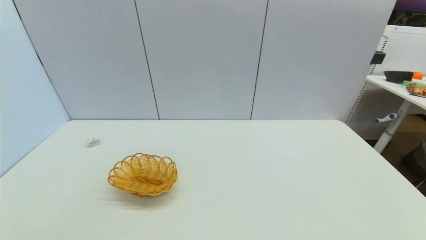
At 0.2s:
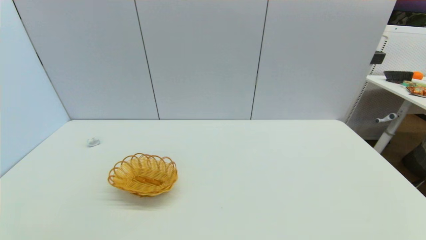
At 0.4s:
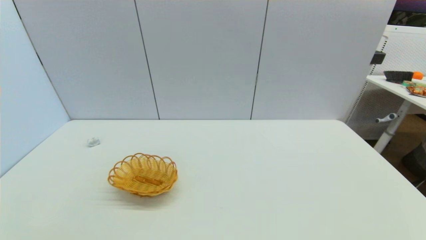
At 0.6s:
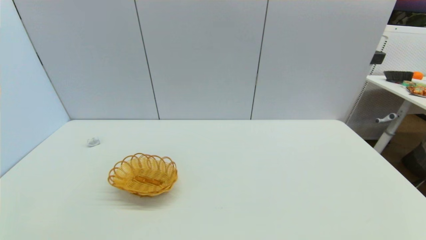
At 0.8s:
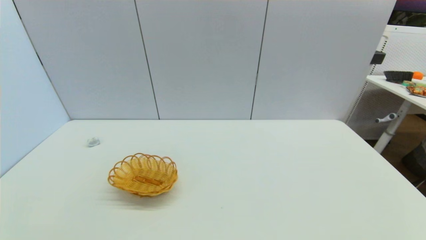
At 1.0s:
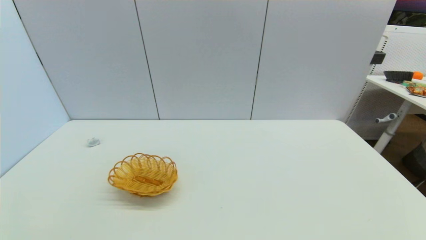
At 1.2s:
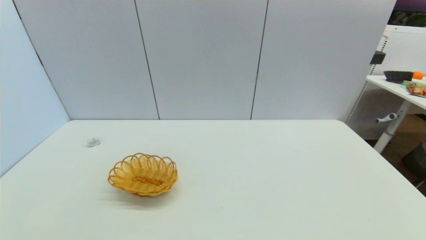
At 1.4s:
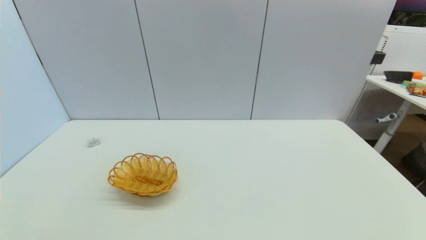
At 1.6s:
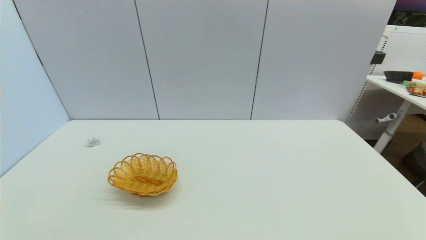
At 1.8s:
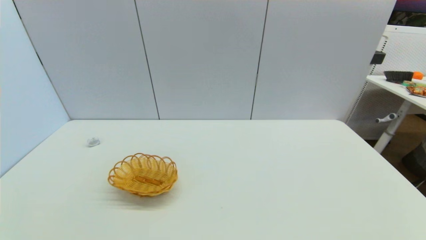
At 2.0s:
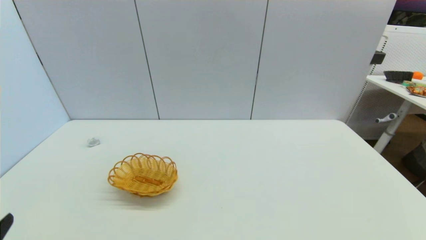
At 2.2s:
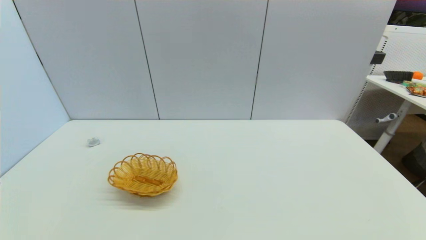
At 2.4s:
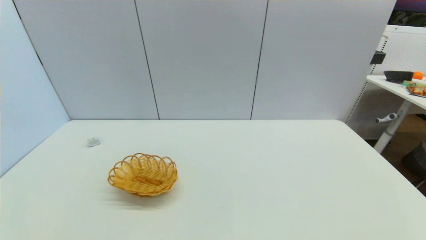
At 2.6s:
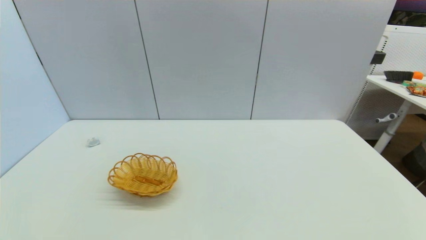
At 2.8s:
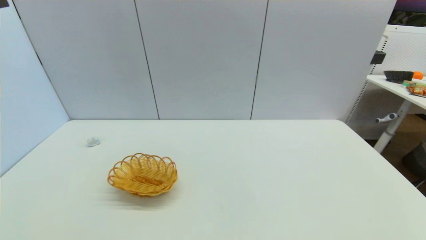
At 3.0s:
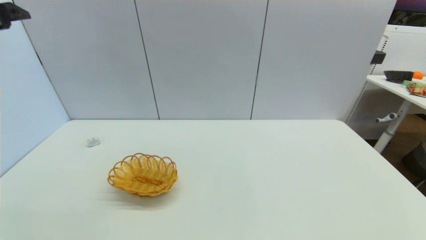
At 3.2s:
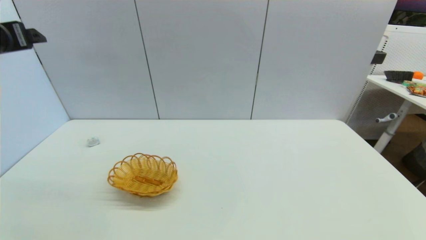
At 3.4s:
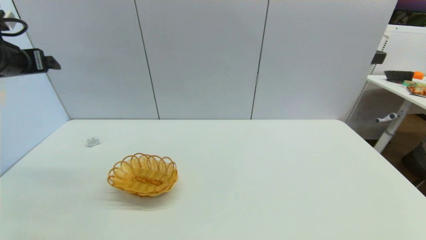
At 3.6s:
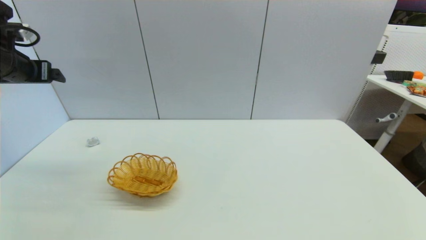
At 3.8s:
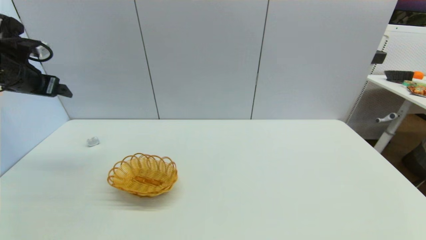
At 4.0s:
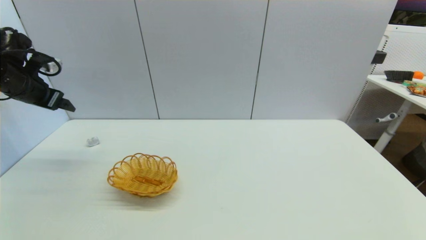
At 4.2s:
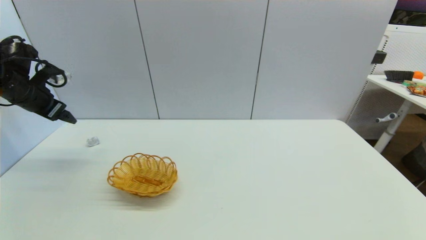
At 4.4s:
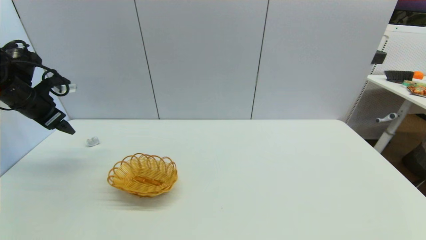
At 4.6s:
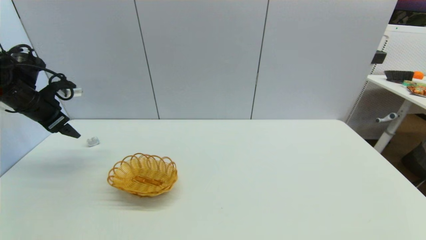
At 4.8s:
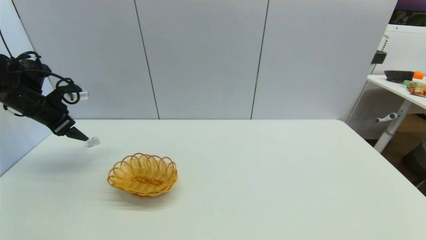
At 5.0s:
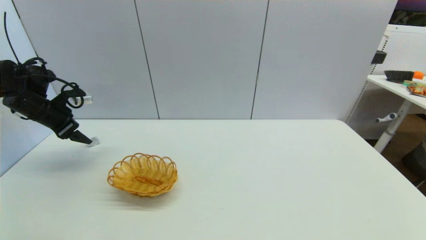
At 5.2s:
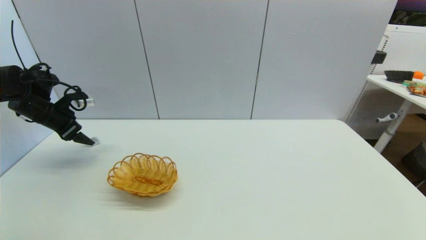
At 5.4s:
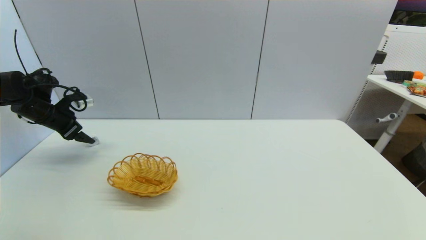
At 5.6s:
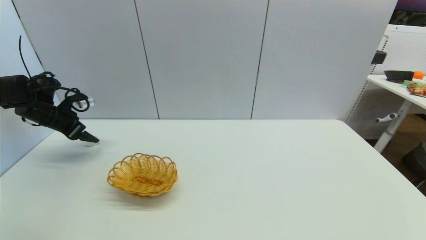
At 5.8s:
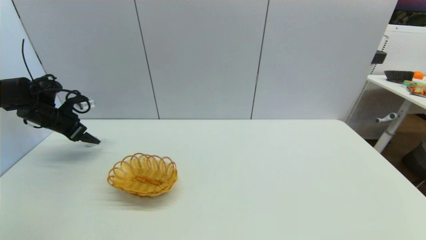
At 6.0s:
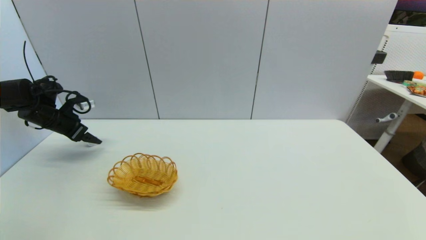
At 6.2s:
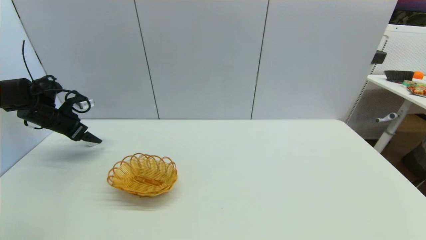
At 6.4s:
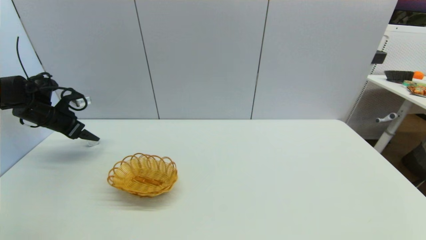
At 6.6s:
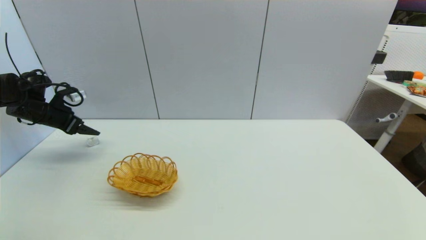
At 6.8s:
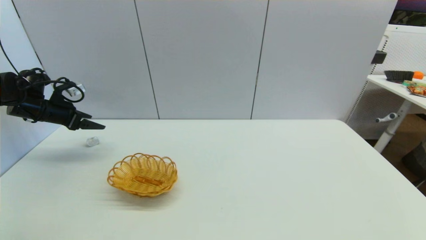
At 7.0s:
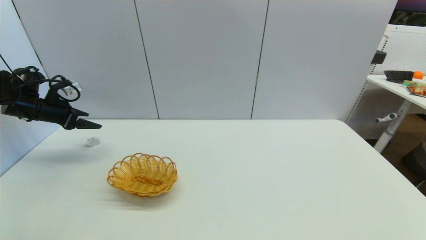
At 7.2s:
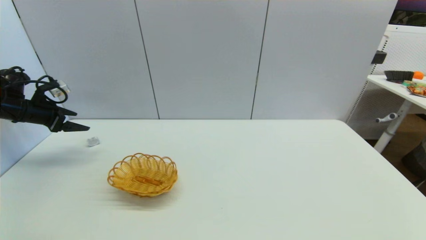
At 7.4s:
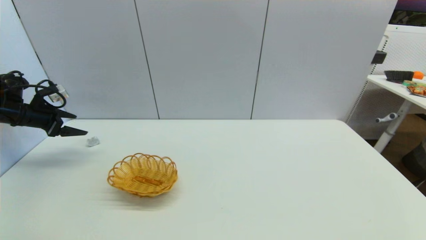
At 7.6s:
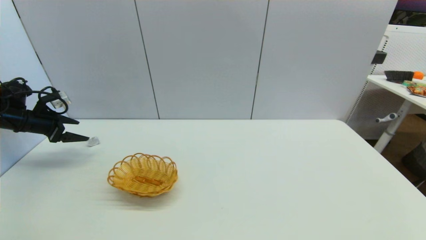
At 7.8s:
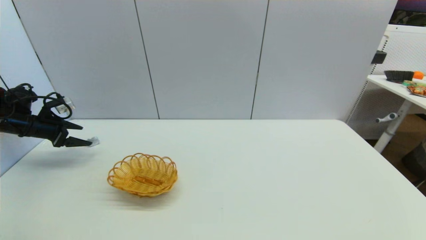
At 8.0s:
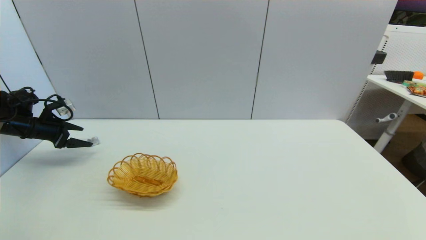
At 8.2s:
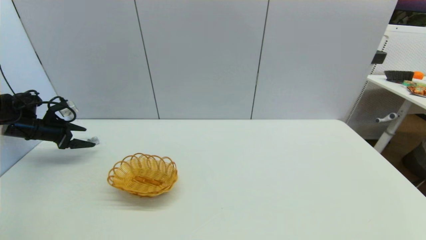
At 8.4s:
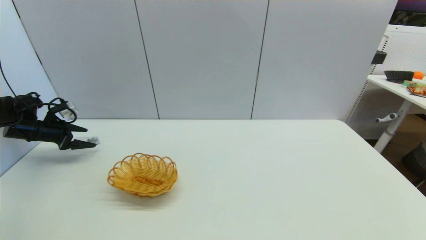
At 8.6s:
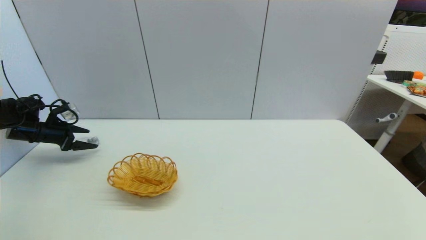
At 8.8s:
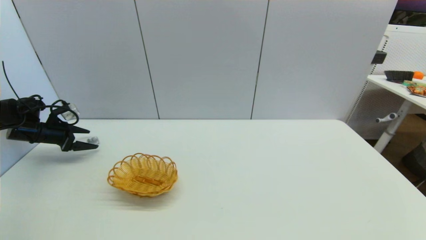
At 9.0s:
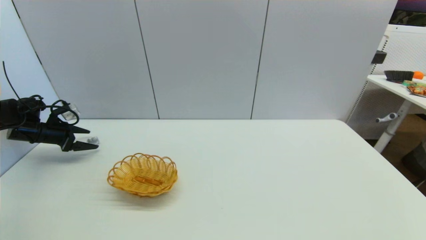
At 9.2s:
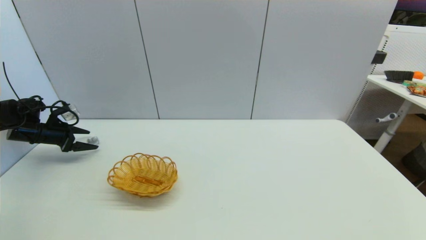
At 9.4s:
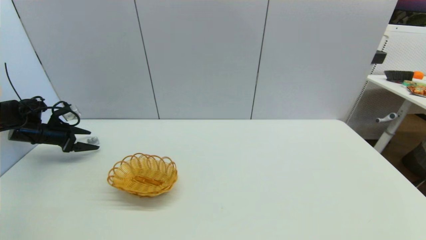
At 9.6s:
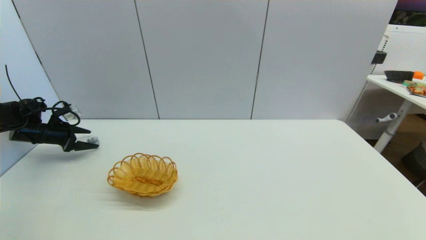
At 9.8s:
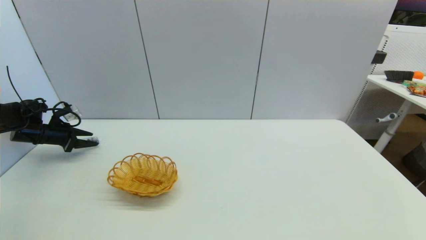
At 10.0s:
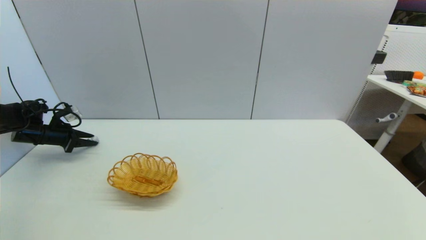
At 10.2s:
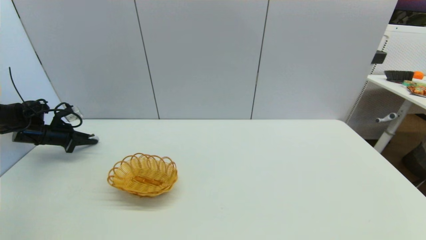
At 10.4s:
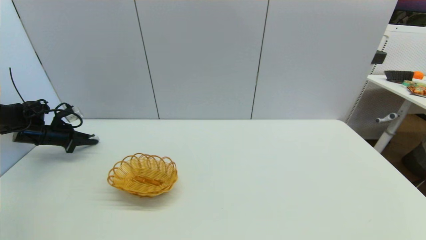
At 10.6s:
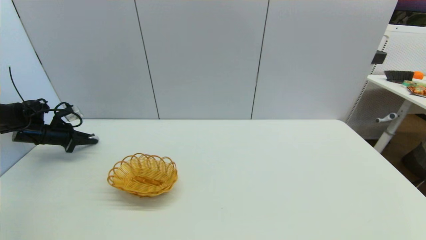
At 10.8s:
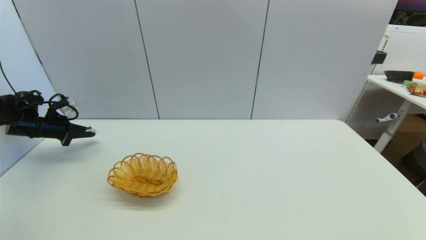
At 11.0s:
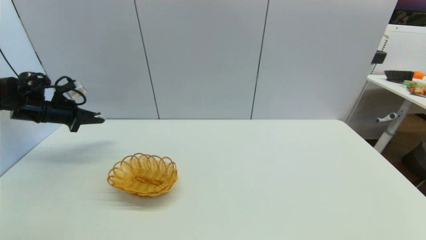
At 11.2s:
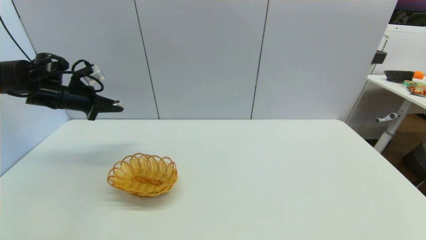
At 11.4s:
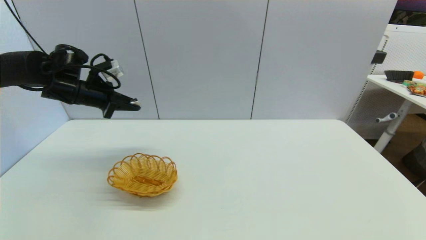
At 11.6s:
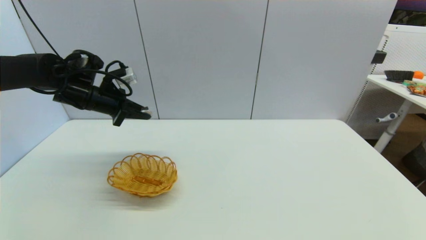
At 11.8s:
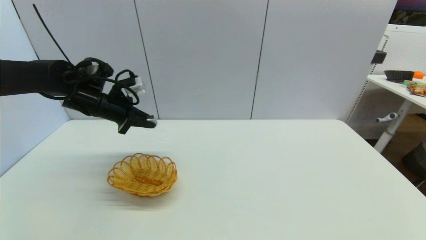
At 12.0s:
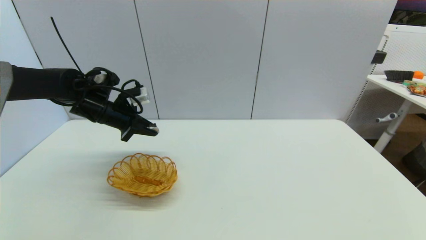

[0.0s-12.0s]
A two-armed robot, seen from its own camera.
Step, 1.8s to 10.4s: Grasp the coffee capsule with left gripper.
0.0s to 1.6s: Neither gripper changes place.
3.0s to 4.4s: The left gripper shifts some 20 cm downward, forward and to the left.
4.4s to 6.0s: The left gripper shifts about 10 cm downward and forward.
6.0s to 7.6s: The left gripper ends up roughly 5 cm from where it was.
7.6s to 9.0s: The left gripper goes approximately 5 cm downward.
9.0s to 10.4s: The left gripper closes its fingers.
10.4s to 12.0s: The left gripper travels to the right and upward by some 25 cm.

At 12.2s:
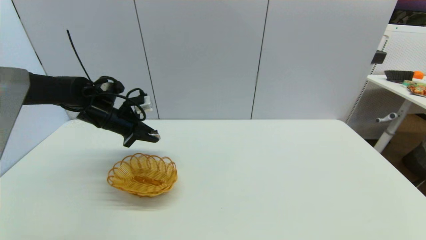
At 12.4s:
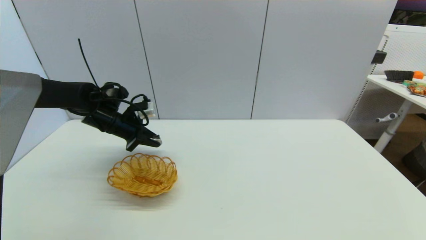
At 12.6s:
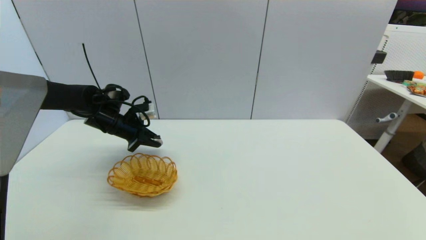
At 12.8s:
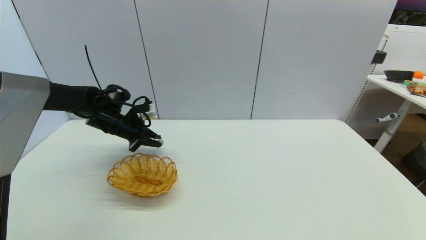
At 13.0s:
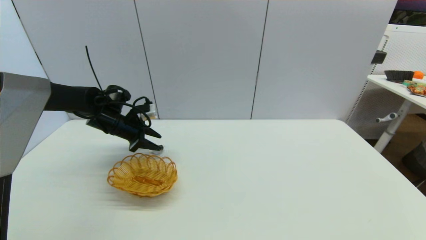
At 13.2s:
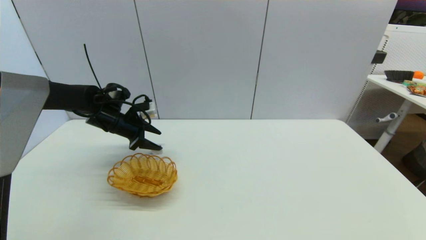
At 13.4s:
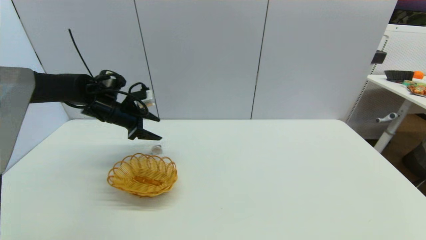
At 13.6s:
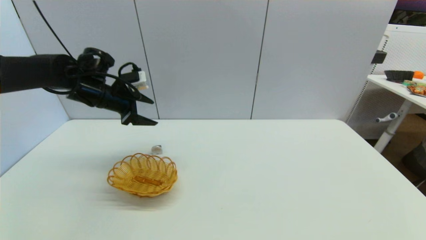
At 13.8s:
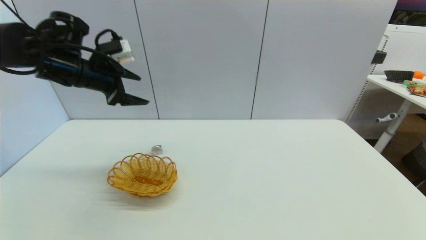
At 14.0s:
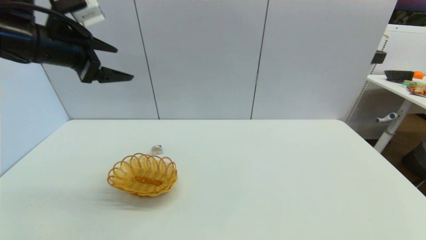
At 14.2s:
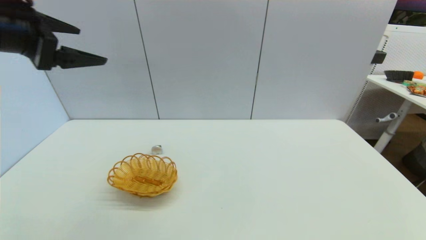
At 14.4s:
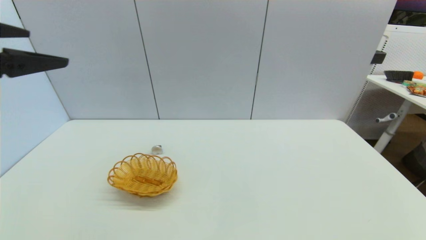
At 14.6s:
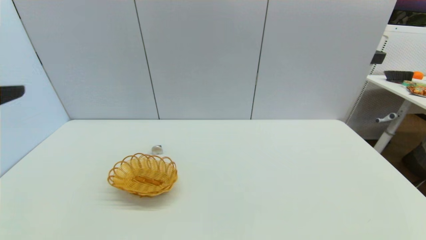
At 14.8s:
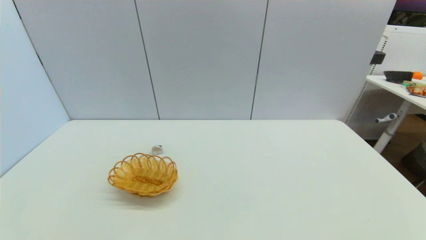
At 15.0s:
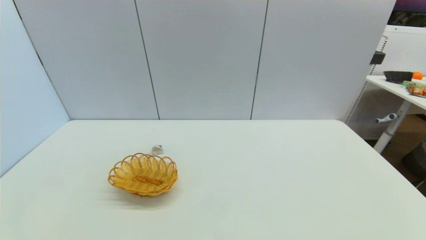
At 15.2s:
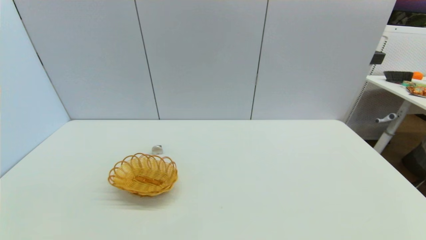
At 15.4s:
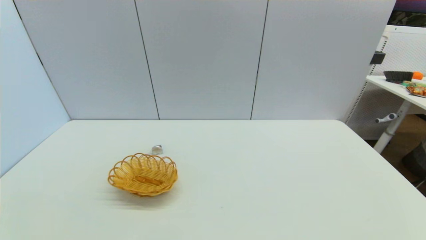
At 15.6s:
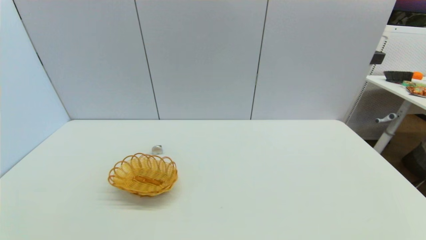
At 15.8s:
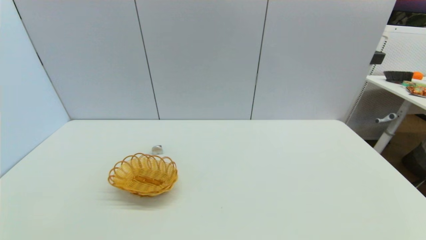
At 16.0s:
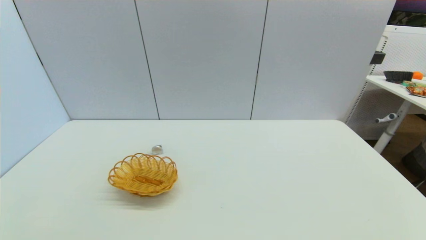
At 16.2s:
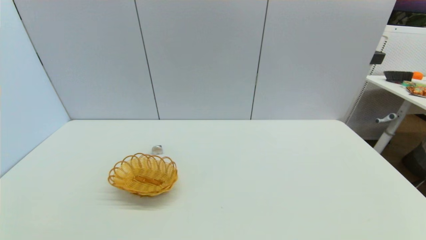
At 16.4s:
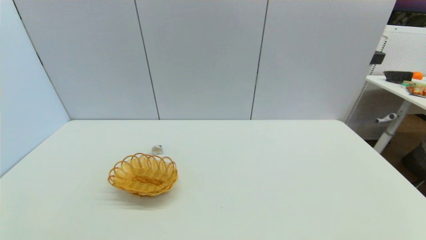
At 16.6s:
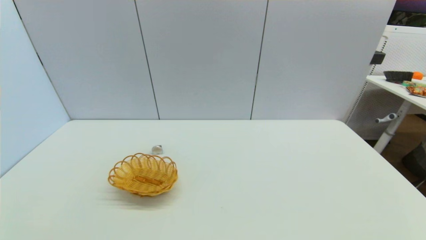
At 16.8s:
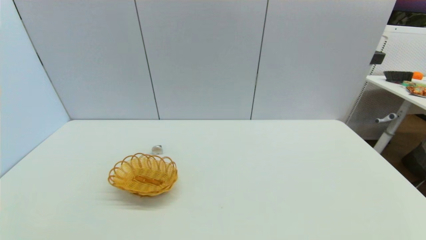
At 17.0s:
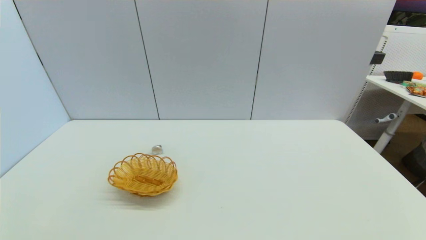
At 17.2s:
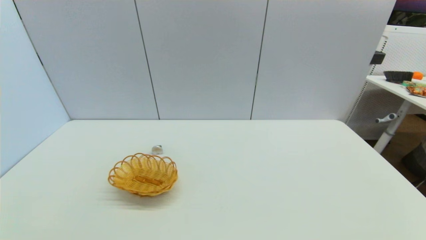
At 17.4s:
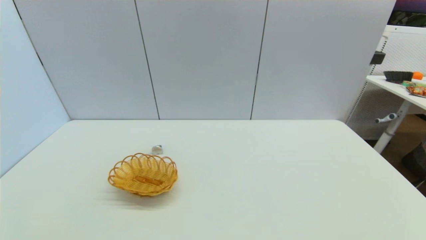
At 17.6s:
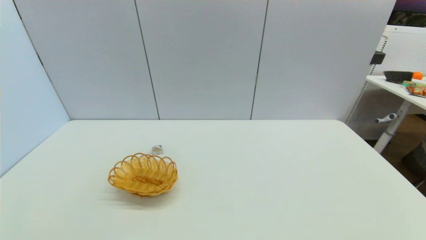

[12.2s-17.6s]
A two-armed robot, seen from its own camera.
12.2s to 13.6s: The left gripper moves upward, approximately 5 cm, and opens.
13.6s to 15.0s: The left gripper heads backward, covering approximately 40 cm.
16.2s to 17.6s: The two grippers keep their place.
